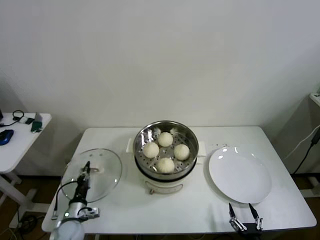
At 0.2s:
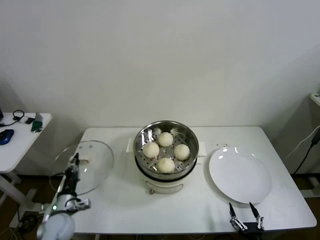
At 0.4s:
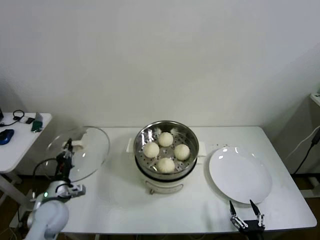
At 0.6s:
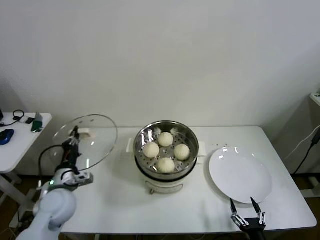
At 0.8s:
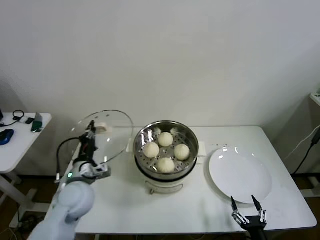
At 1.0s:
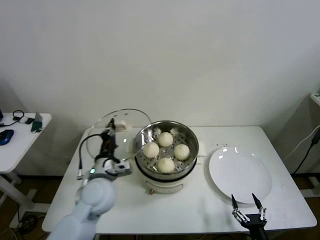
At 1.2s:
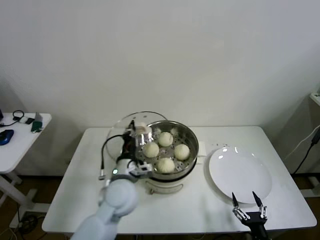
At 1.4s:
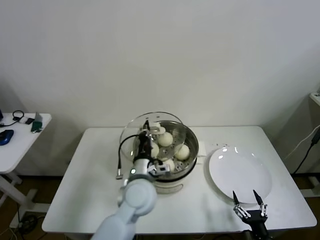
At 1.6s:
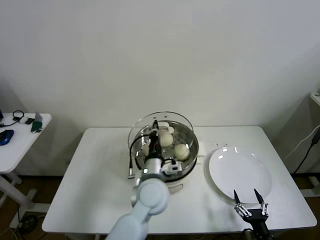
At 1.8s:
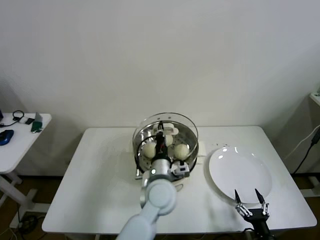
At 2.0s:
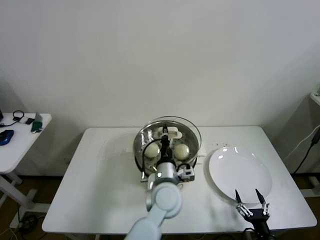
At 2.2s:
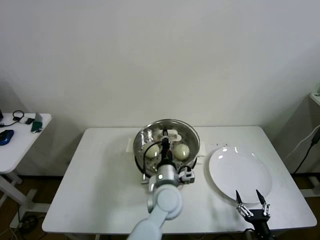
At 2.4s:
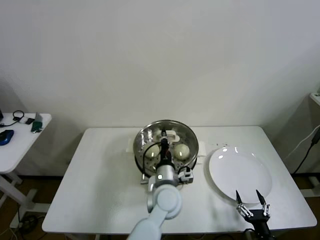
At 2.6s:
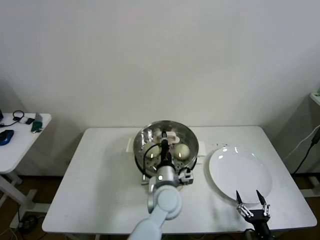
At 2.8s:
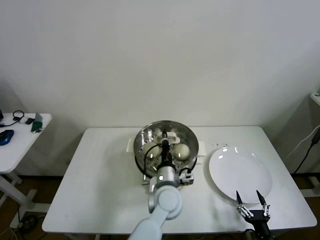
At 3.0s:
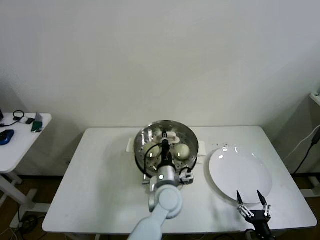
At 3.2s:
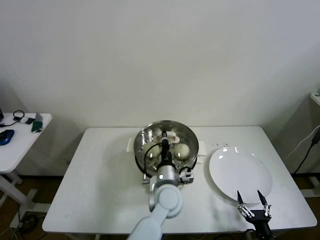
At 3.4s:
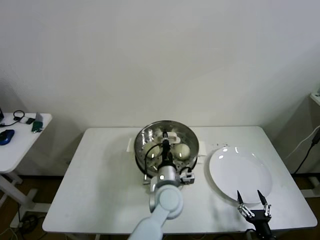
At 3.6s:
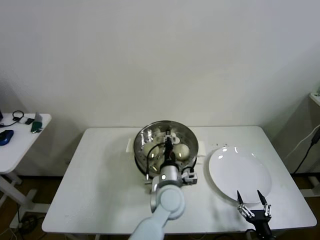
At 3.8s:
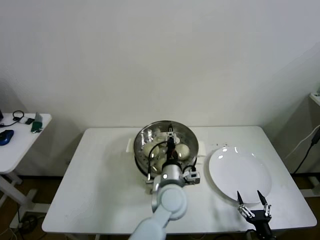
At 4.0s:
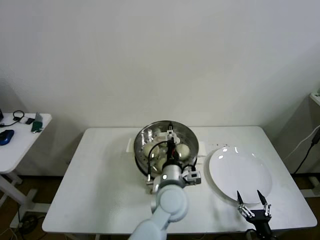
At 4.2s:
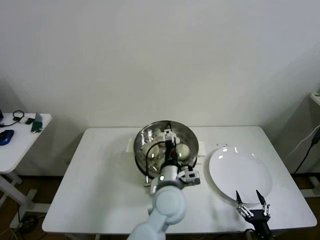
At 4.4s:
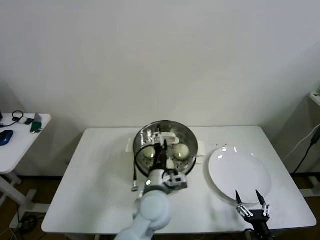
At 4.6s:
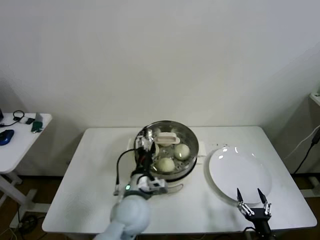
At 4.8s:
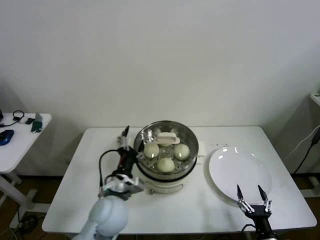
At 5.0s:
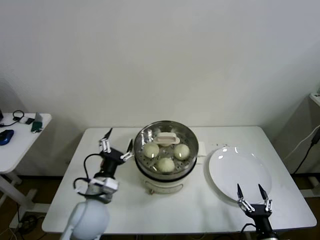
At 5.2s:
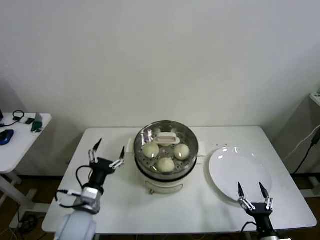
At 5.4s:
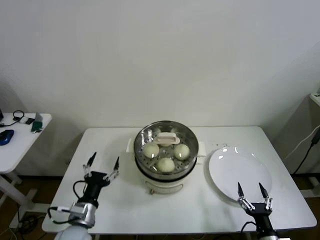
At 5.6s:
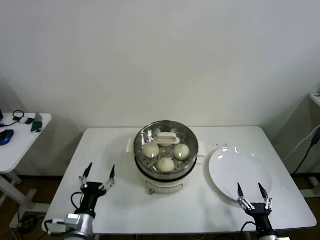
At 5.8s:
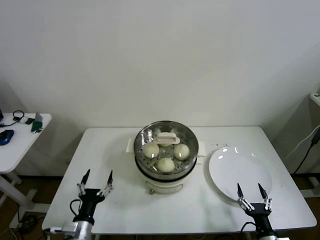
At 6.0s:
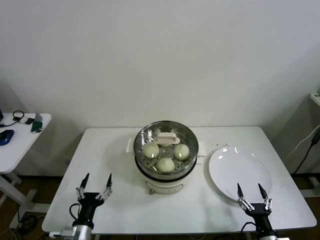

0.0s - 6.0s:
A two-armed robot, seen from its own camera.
Step, 0.0s - 3.6s: Place the pot lid on the steamer with left gripper.
0.0s - 1.6s: The left gripper heads to the right and upward, covering some 35 cm.
1.6s - 3.0s: The left gripper travels downward and to the right by about 10 cm.
3.0s - 4.4s: The left gripper ends up about 5 cm from where it was, and opens its fingers.
4.4s - 6.0s: The left gripper travels to the left, downward and backward by roughly 30 cm.

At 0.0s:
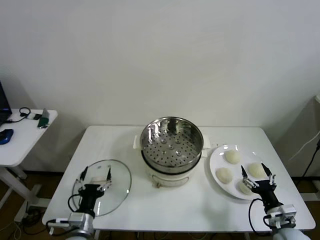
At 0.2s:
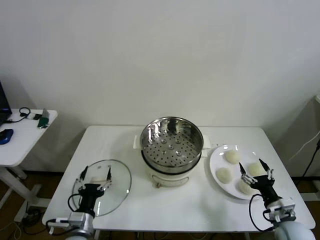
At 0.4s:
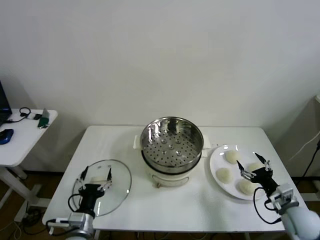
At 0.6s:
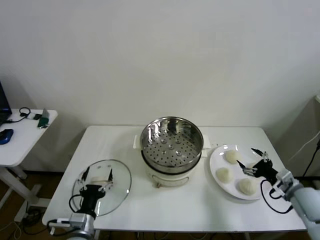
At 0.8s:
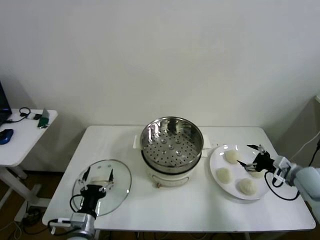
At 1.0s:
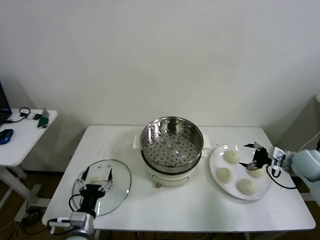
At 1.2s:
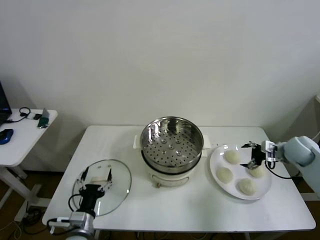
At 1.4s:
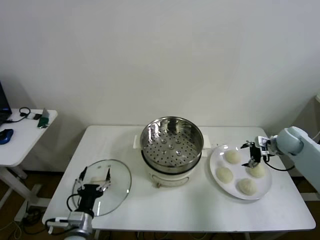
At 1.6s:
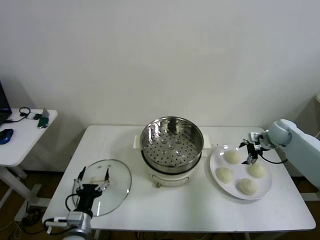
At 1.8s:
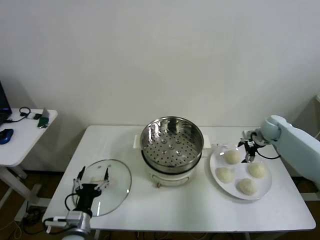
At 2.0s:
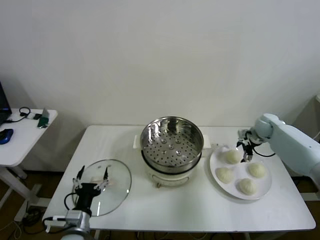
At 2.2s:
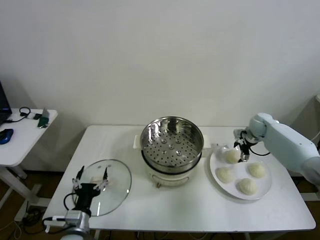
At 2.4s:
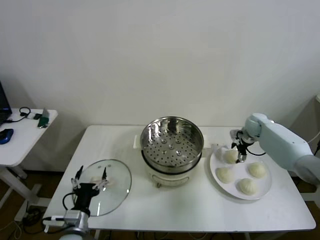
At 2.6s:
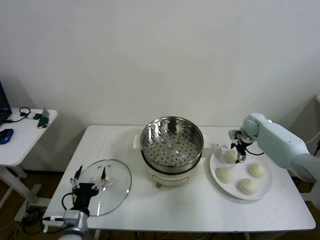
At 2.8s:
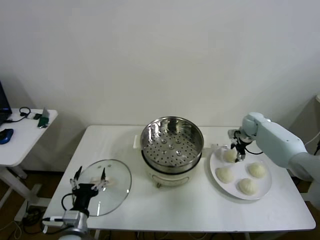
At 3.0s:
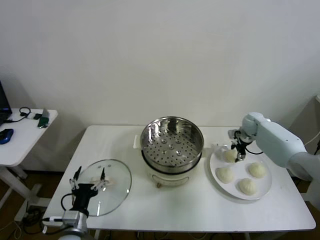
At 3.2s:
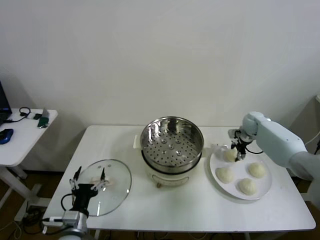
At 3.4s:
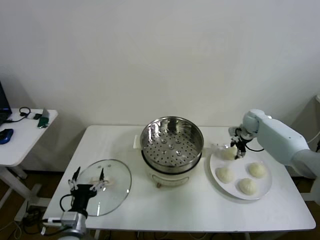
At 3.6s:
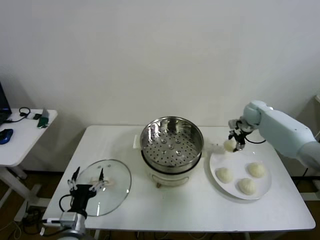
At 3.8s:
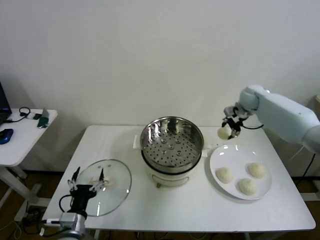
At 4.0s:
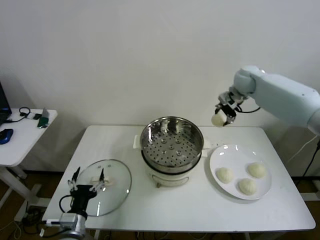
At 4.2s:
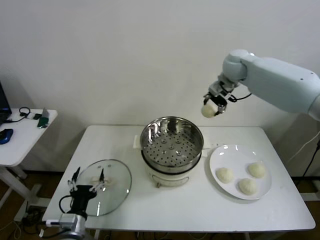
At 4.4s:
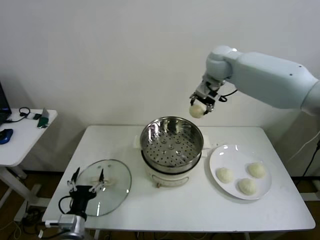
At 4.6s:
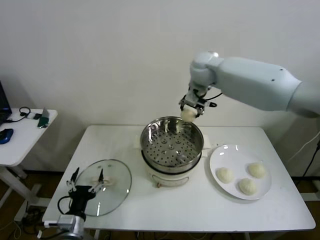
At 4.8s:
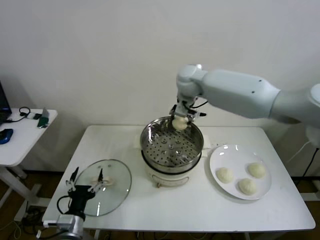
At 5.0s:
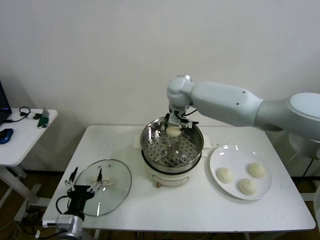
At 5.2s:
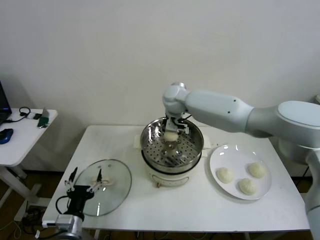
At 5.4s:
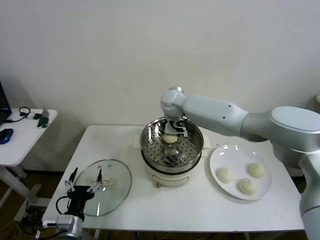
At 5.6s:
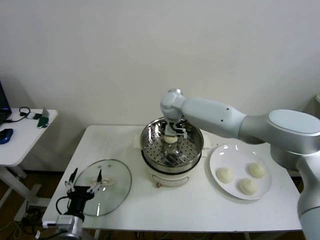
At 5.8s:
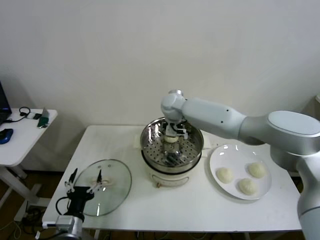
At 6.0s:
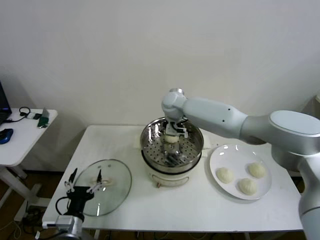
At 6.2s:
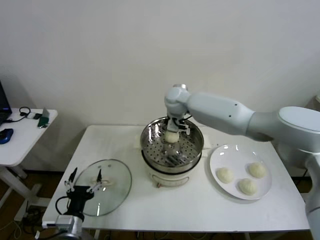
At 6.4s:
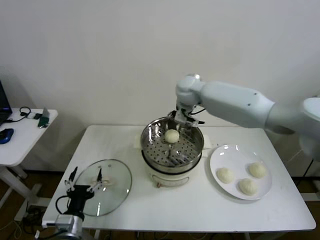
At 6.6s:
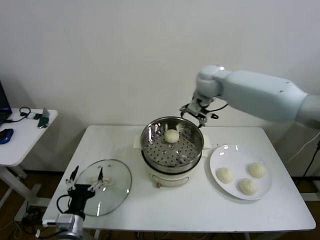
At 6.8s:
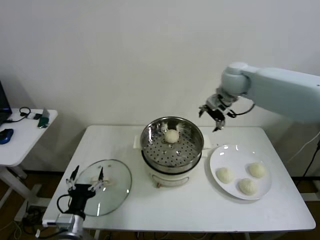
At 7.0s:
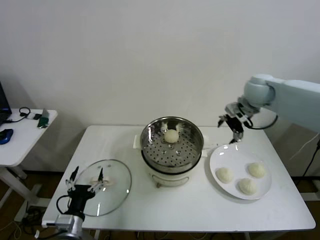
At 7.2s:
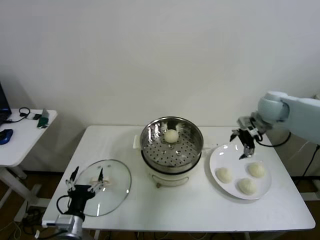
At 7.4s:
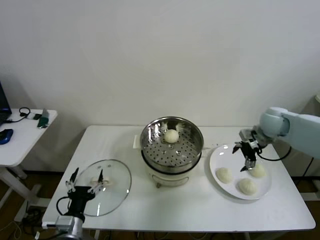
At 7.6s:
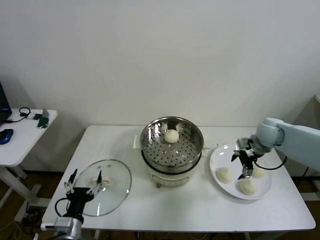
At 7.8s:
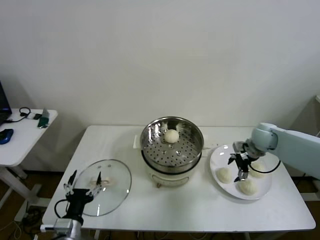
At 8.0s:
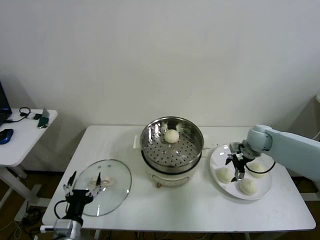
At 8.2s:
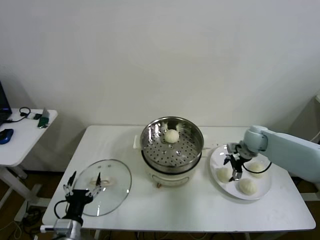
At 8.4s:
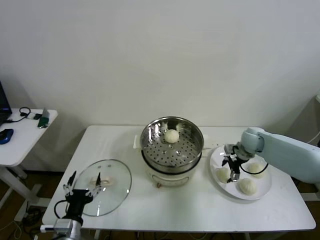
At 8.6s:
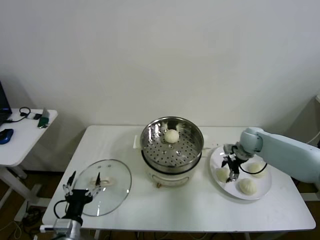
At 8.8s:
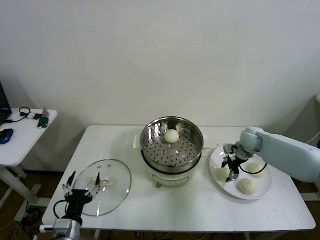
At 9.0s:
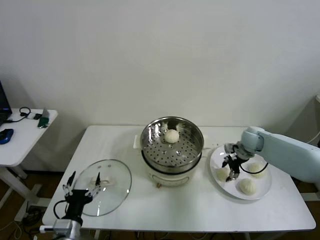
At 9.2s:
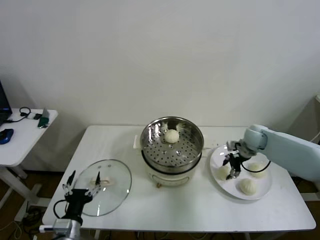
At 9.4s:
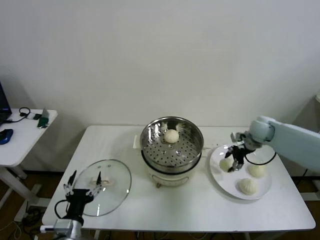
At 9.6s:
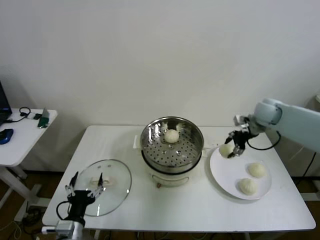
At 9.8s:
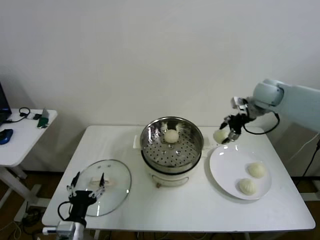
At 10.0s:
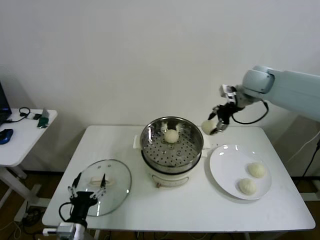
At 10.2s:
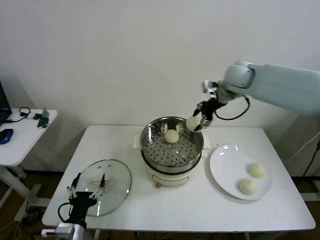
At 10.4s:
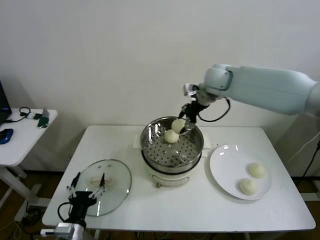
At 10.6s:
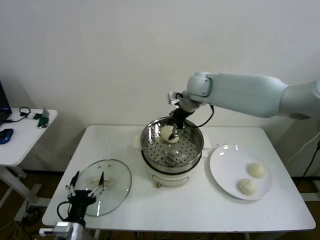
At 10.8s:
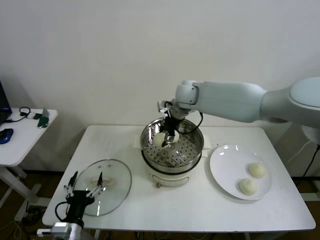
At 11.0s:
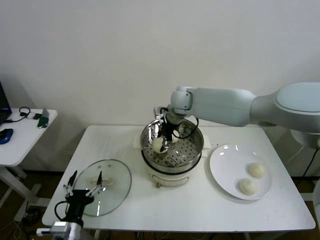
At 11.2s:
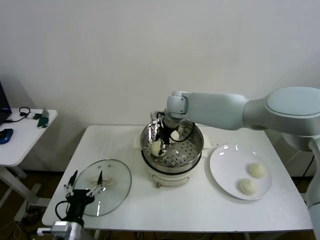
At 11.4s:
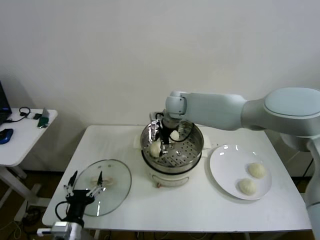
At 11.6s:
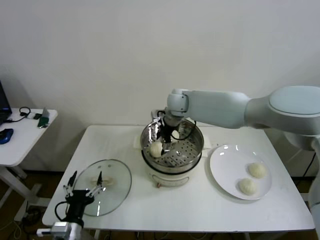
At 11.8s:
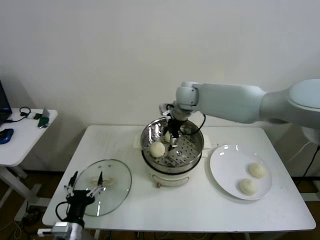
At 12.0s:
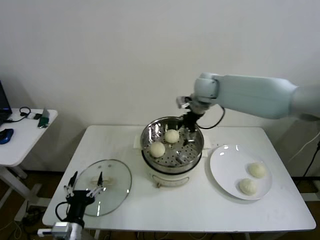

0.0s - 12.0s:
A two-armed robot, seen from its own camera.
Step, 0.0s - 3.0s: Grasp the baozi in the plate with right gripper.
Step, 3.4s - 5.8s: Place the baozi on the steamer with right gripper.
Step, 6.0s - 8.8s: Grasp the baozi in the plate with right gripper.
Step, 9.0s - 11.4s: Place the baozi on the steamer with right gripper.
1.6s - 3.0s: The right gripper moves forward and to the left, approximately 10 cm, and closes up.
3.0s - 4.4s: The right gripper goes about 35 cm upward and to the left.
4.4s - 6.0s: The right gripper moves downward and to the left, approximately 20 cm, and opens.
6.0s - 7.6s: The right gripper moves to the right, approximately 35 cm.
7.6s - 9.0s: The right gripper heads downward, covering some 5 cm, and closes up.
9.0s - 10.4s: The right gripper heads upward and to the left, covering roughly 30 cm.
10.4s - 12.0s: The right gripper goes to the left and returns, approximately 10 cm each way, and opens its fingers.

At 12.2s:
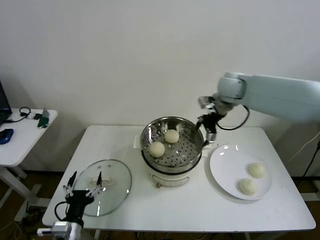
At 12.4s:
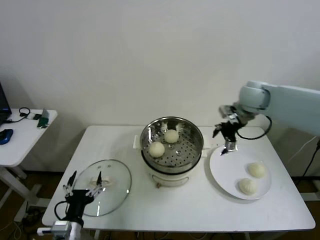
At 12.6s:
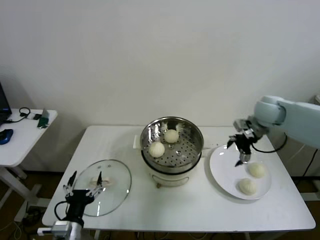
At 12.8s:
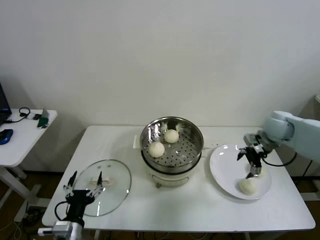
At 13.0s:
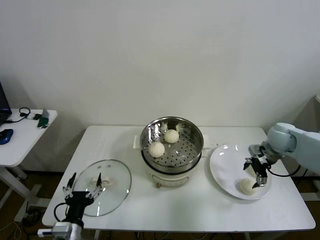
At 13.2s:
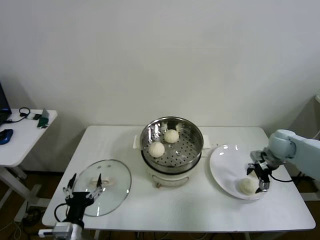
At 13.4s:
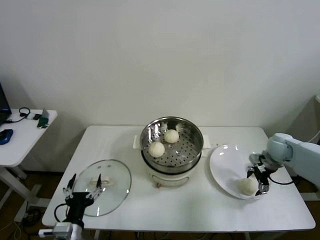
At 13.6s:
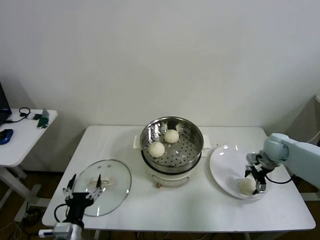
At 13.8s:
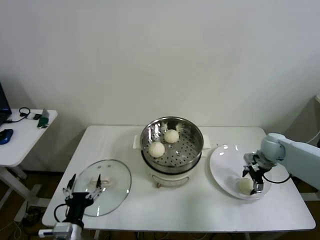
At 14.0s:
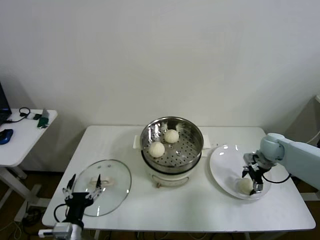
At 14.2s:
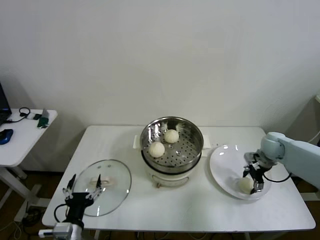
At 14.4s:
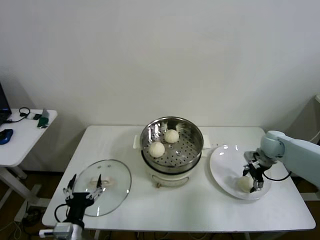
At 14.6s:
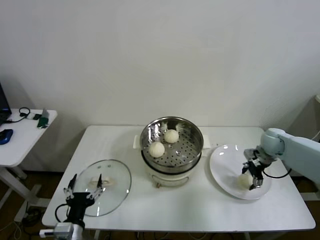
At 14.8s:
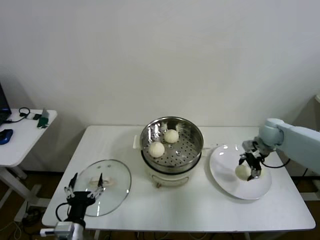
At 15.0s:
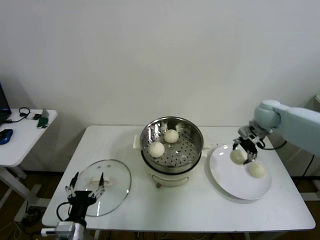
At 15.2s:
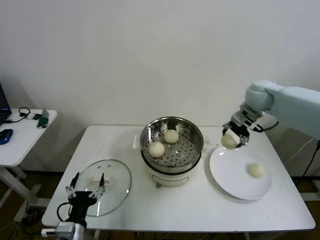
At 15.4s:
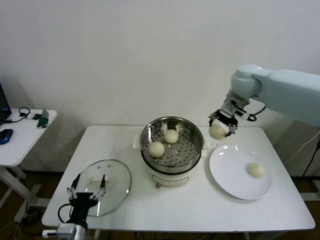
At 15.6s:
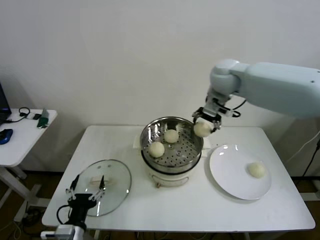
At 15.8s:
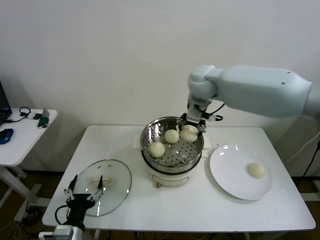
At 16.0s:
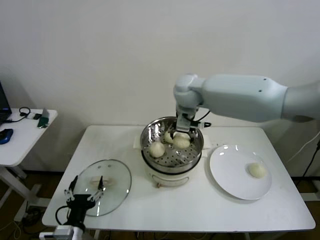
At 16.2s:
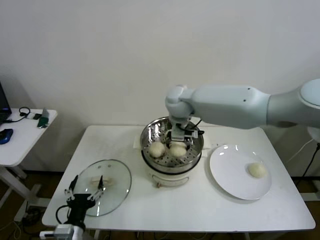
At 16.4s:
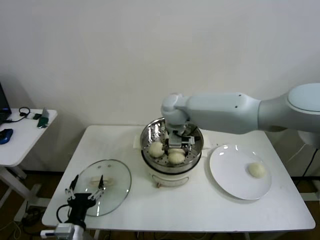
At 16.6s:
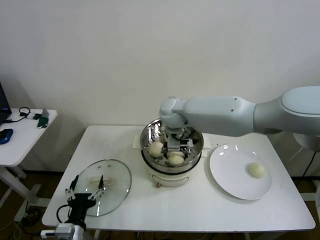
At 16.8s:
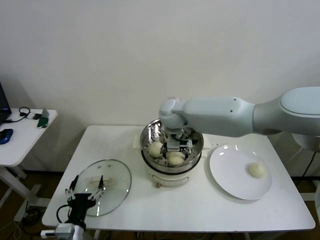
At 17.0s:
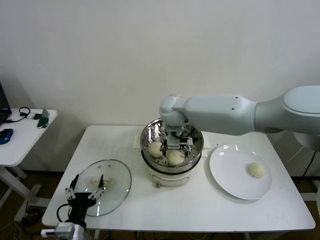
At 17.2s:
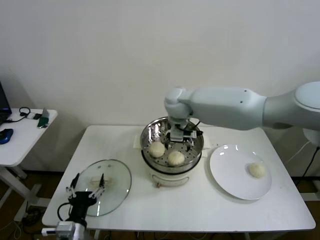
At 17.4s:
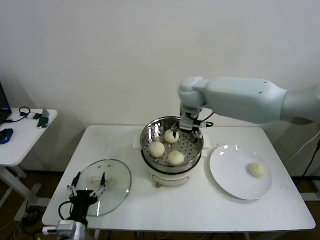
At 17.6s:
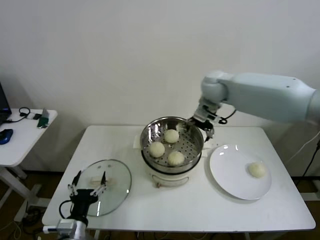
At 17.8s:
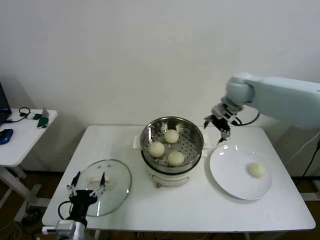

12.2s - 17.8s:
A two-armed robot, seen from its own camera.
Step, 12.2s - 14.2s: Grasp the baozi in the plate with right gripper.
Step, 14.4s - 16.8s: Place the baozi on the steamer with right gripper.
12.2s - 13.6s: The right gripper shifts approximately 30 cm downward, to the right and backward.
13.6s - 15.0s: The right gripper moves upward, forward and to the left, some 15 cm, and closes.
15.0s - 16.4s: The right gripper is displaced to the left by about 35 cm.
16.4s - 17.8s: The right gripper travels to the right by about 20 cm, and opens up.
